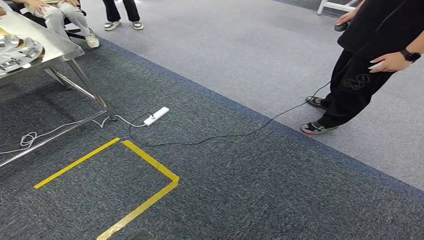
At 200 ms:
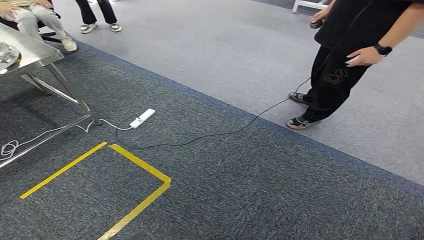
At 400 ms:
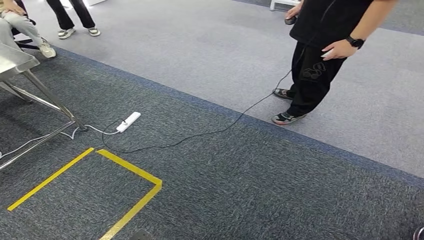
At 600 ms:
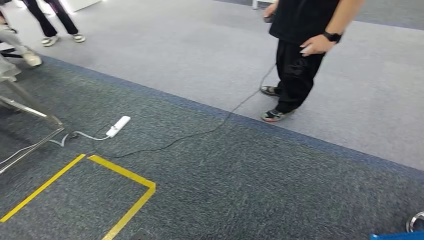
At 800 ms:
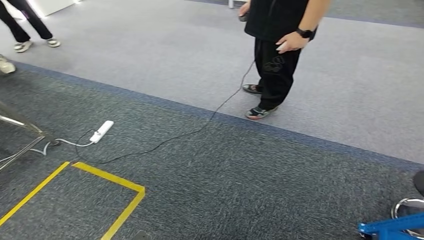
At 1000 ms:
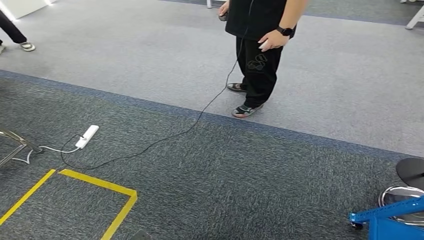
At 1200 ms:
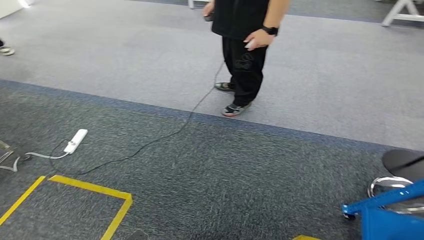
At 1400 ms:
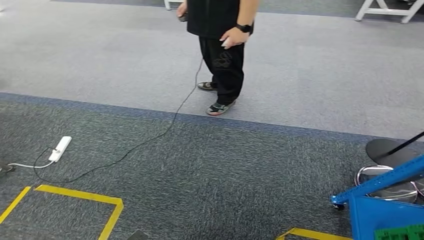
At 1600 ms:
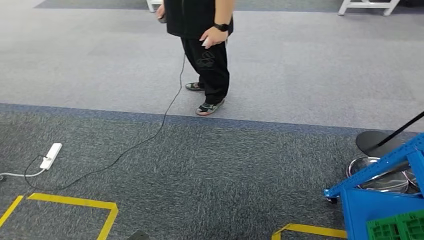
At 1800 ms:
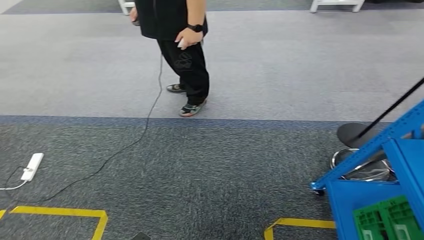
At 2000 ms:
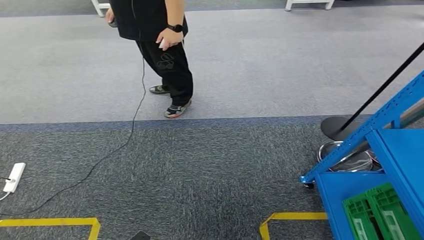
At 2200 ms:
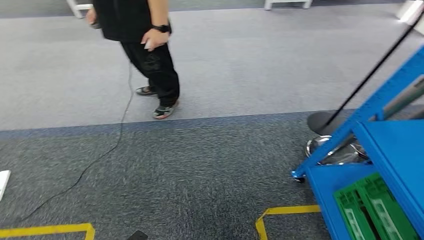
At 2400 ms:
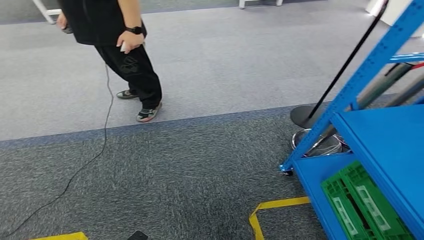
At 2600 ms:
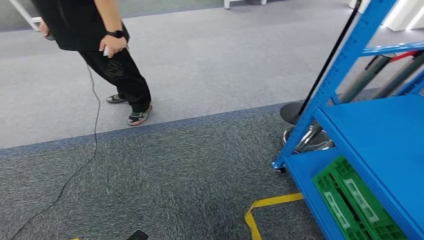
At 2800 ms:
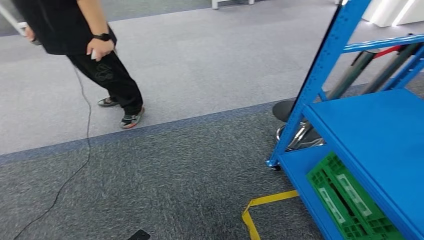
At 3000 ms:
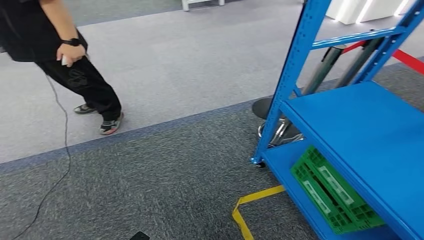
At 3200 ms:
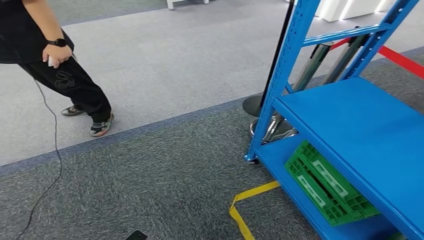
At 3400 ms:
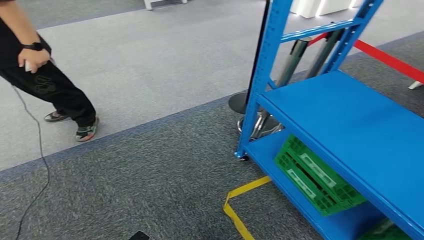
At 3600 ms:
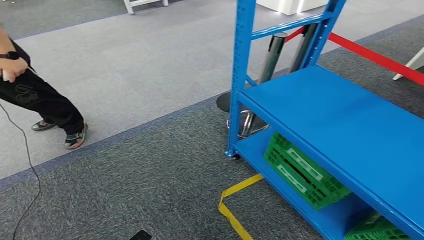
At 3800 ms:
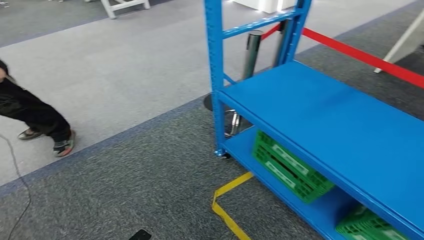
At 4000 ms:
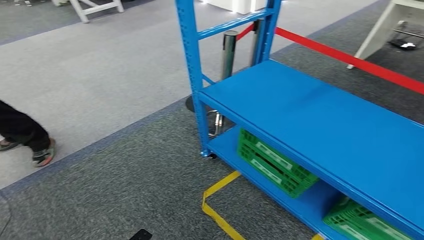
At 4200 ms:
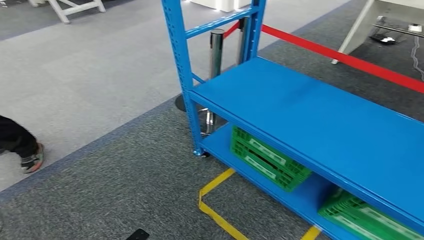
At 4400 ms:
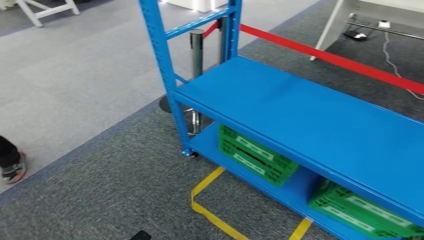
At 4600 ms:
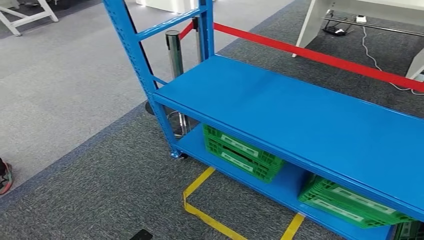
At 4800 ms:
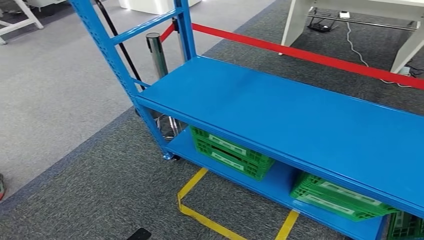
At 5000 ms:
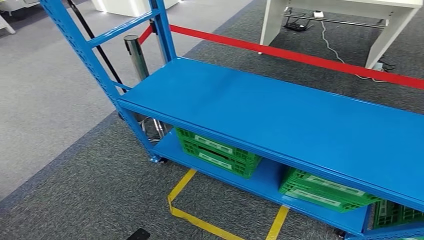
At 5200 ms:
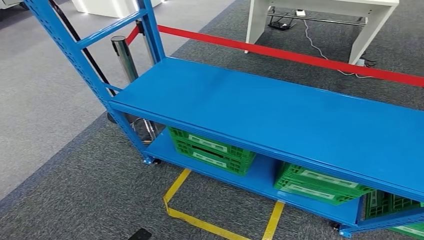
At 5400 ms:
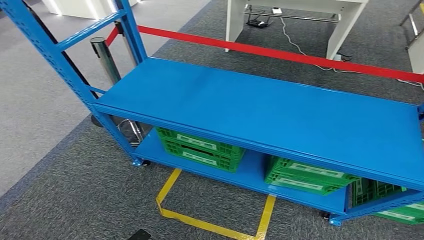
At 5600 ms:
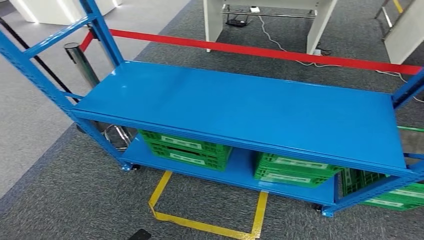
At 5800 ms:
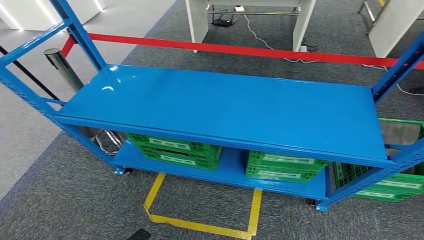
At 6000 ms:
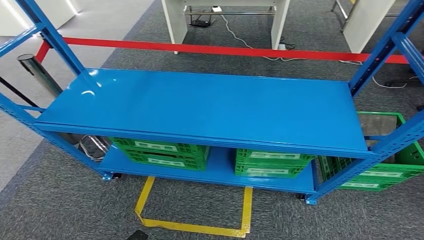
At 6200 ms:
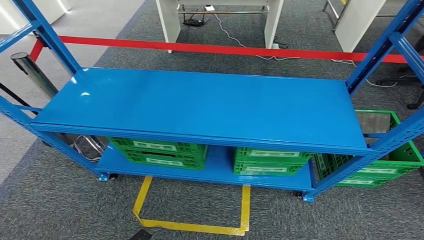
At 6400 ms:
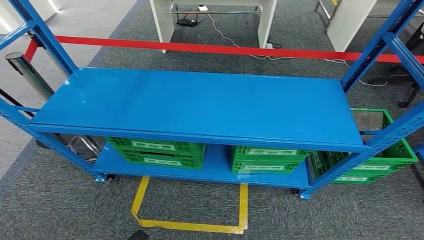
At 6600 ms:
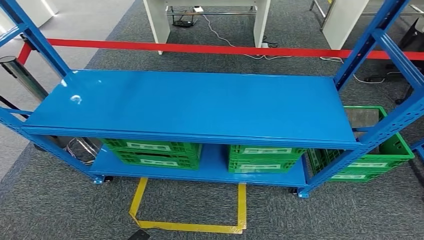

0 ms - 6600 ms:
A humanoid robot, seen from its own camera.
Step, 0 ms - 6600 ms: Return to the initial position at the workbench.
